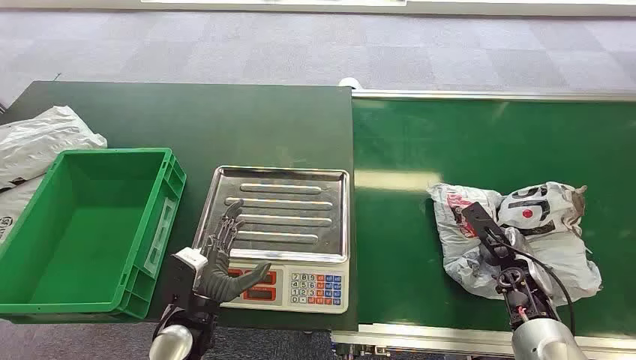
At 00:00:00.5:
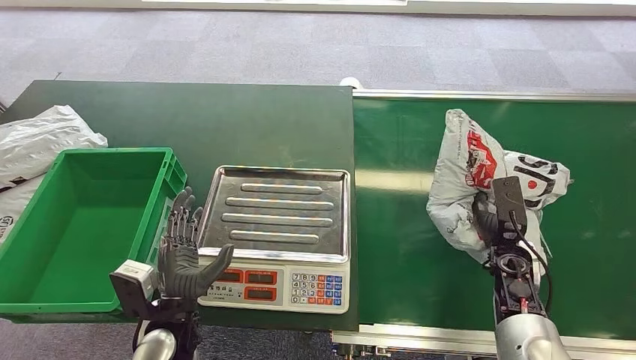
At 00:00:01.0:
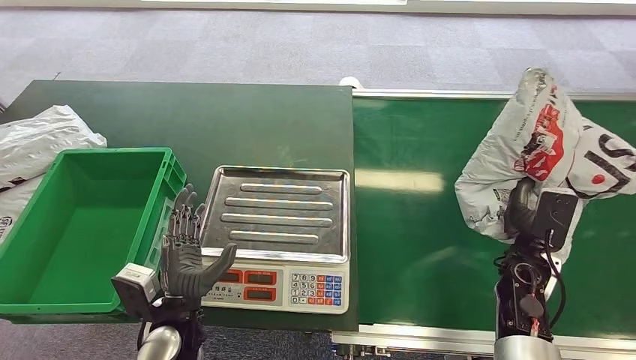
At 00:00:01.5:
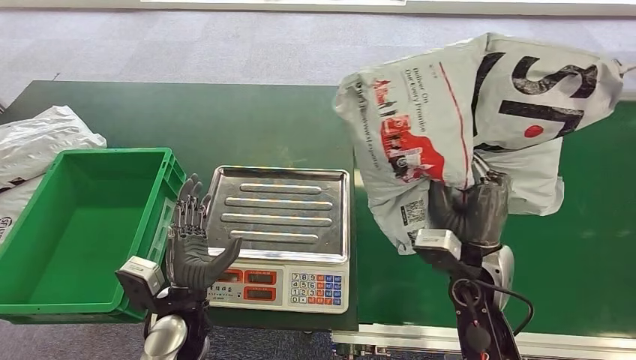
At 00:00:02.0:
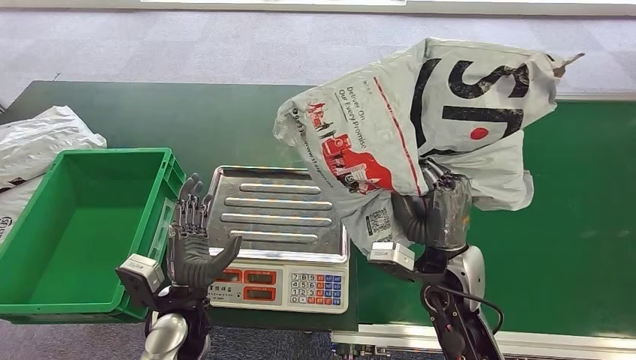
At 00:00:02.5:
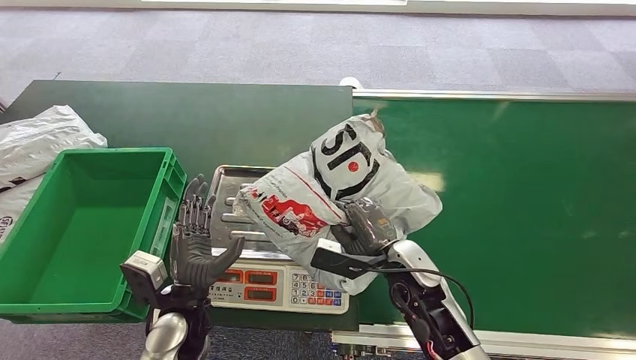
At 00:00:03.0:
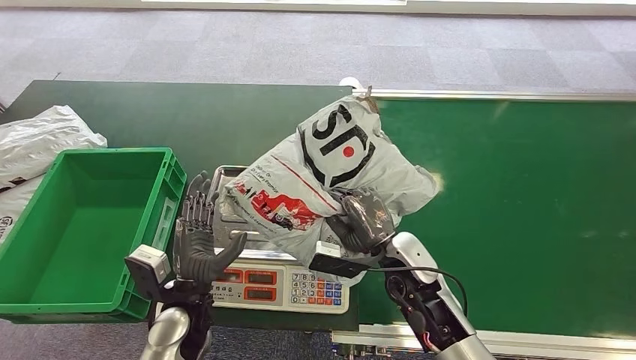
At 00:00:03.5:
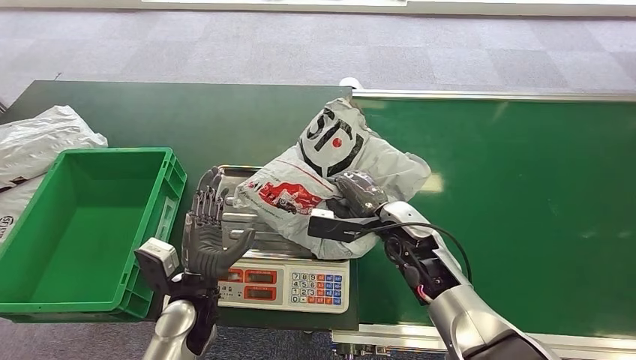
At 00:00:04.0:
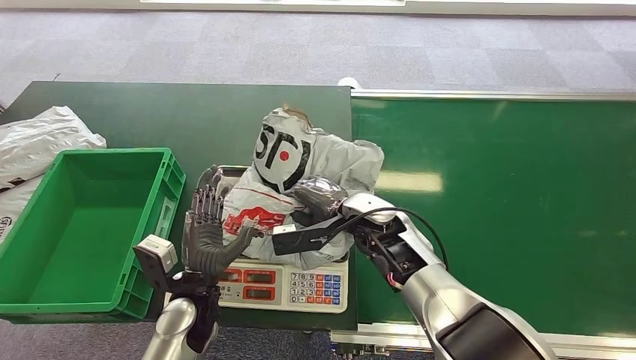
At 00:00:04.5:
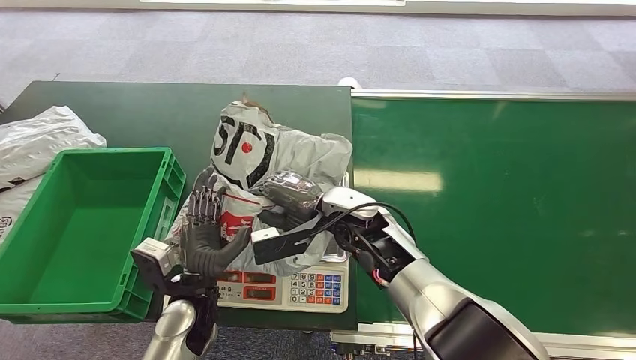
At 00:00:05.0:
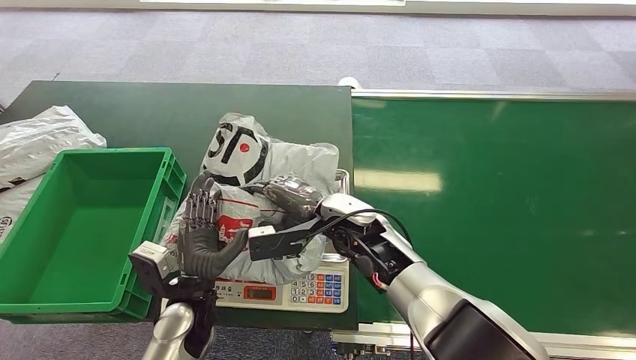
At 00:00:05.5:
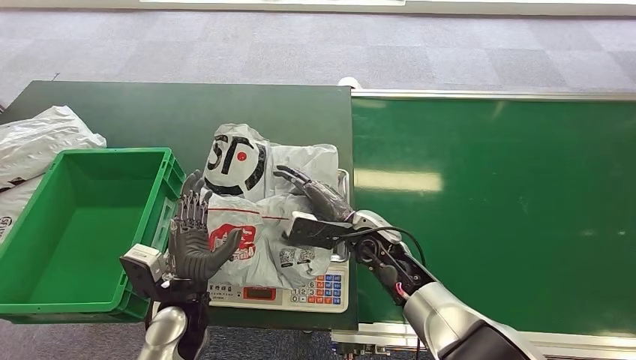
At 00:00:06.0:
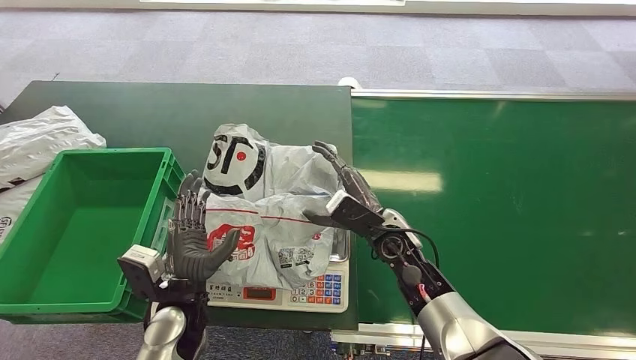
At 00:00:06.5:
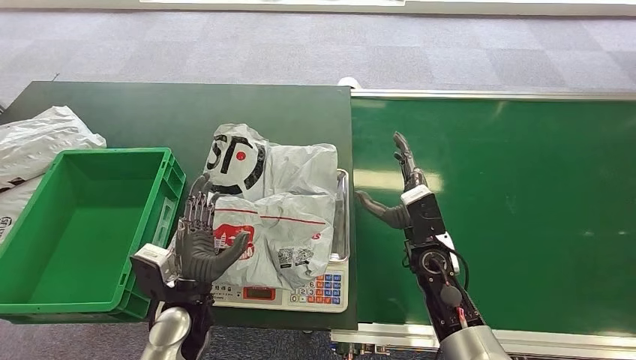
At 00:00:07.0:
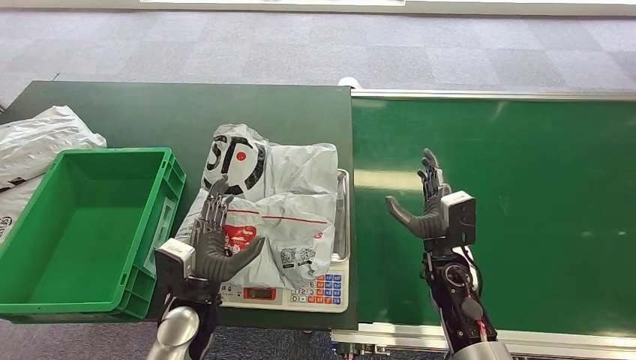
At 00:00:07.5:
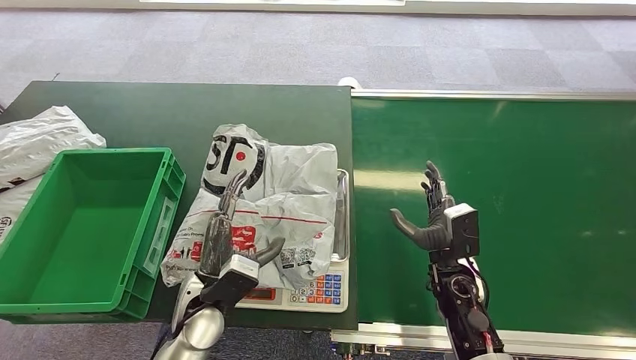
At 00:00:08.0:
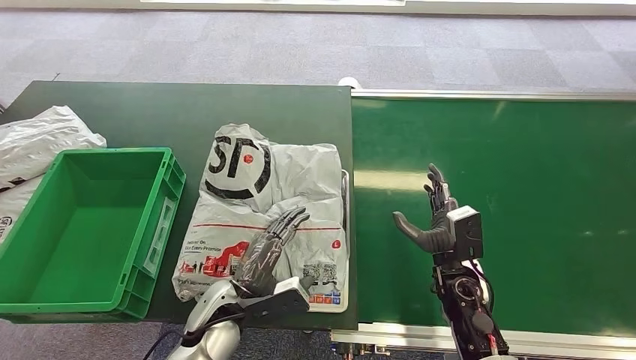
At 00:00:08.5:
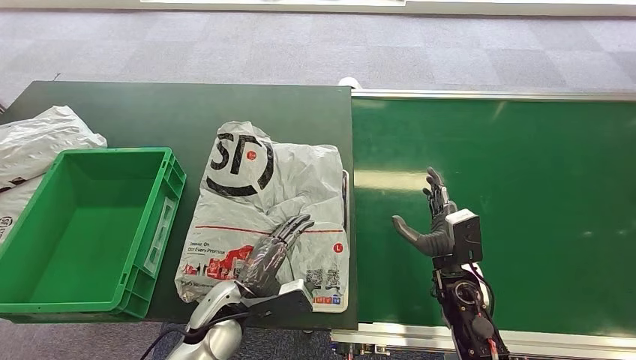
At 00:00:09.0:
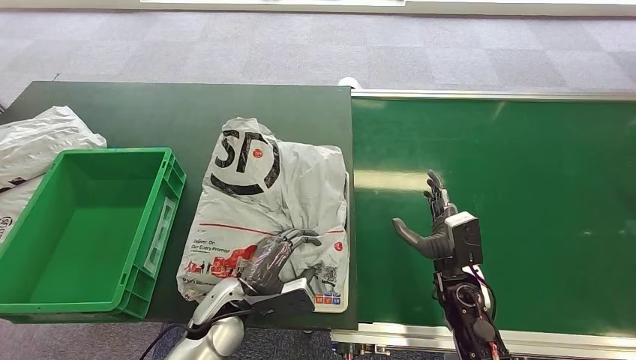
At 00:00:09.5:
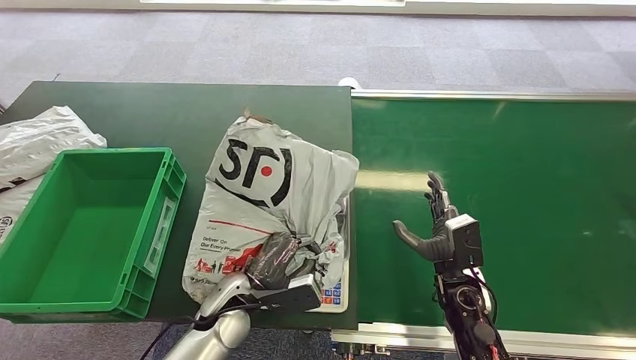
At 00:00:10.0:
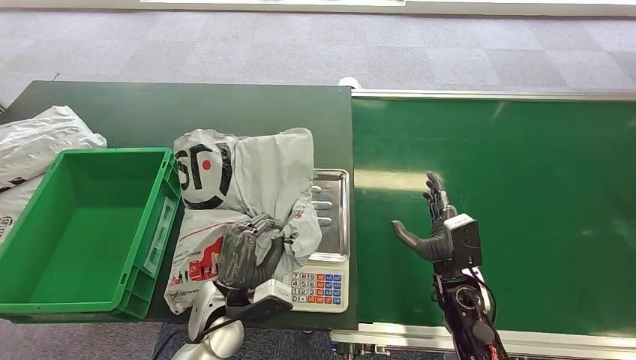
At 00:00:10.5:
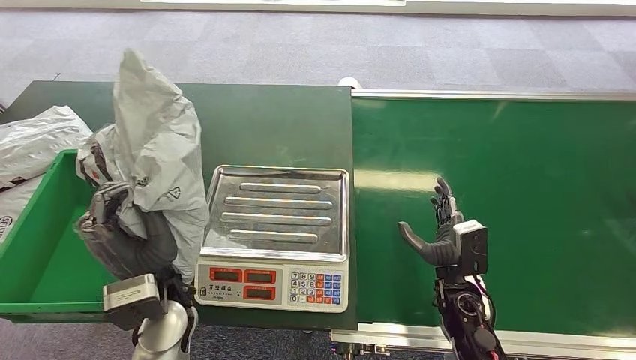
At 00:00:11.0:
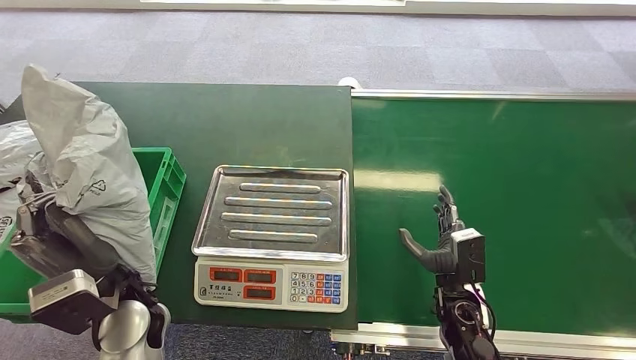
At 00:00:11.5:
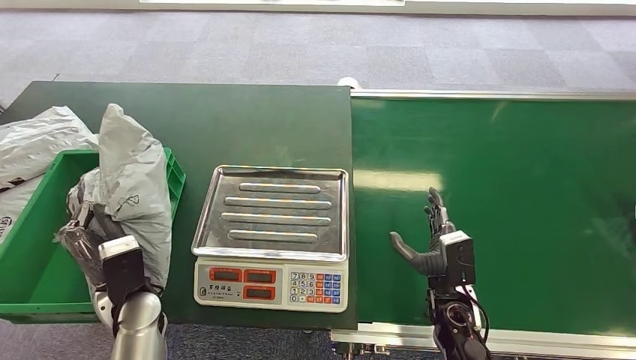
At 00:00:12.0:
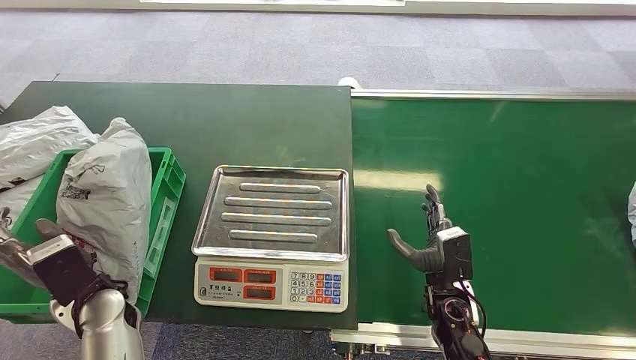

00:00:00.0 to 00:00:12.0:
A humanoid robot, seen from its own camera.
Step, 00:00:00.0 to 00:00:01.0: Pick up the package from the conveyor belt.
Step, 00:00:03.5 to 00:00:05.5: Place the package onto the inbound machine.
Step, 00:00:10.0 to 00:00:10.5: Pick up the package from the inbound machine.
Step, 00:00:11.5 to 00:00:12.0: Place the package into the parcel locker.
00:00:04.0 to 00:00:06.0: The right hand ends up approximately 5 cm from where it was.
00:00:06.0 to 00:00:08.0: The right hand goes approximately 15 cm to the right, backward and downward; the left hand ends up some 5 cm from where it was.

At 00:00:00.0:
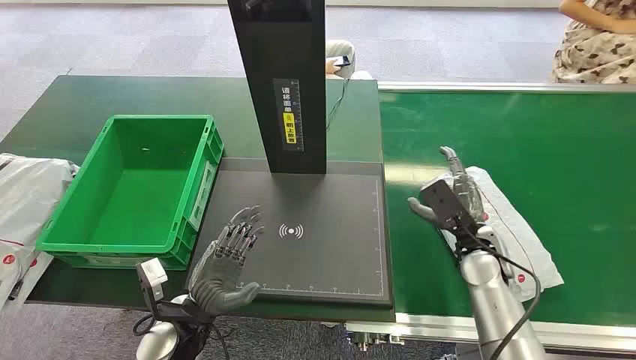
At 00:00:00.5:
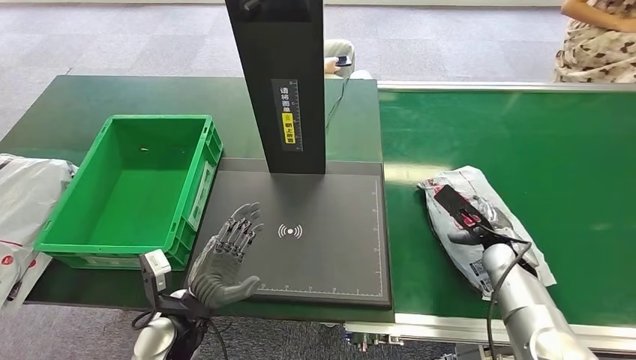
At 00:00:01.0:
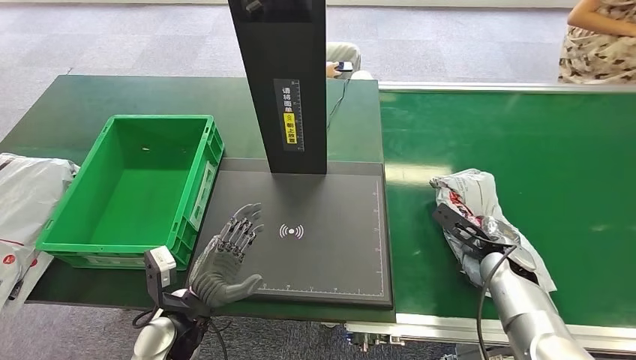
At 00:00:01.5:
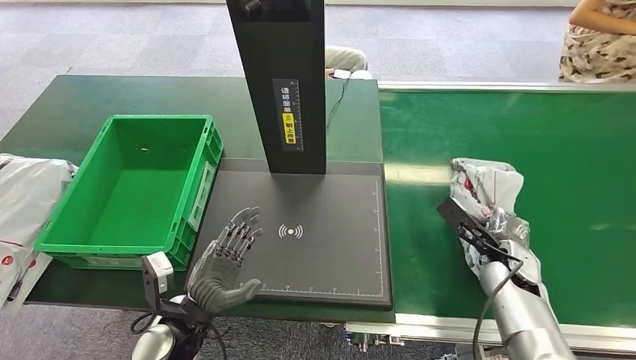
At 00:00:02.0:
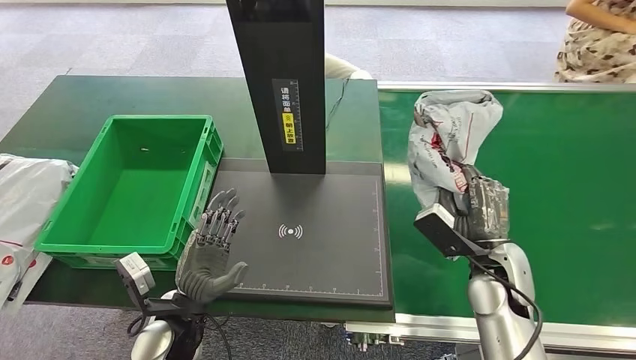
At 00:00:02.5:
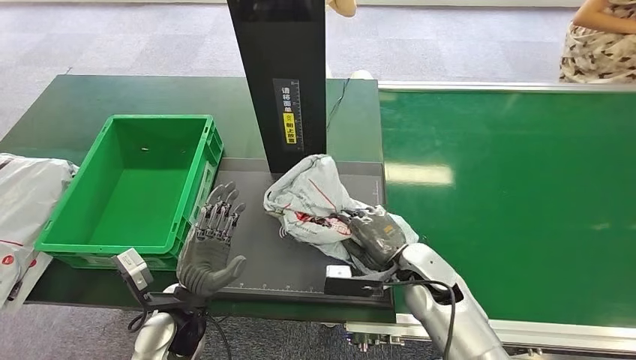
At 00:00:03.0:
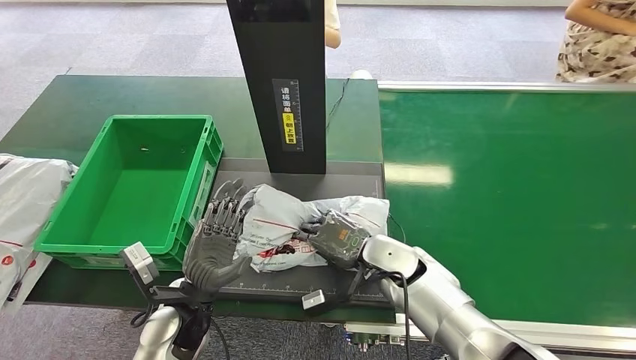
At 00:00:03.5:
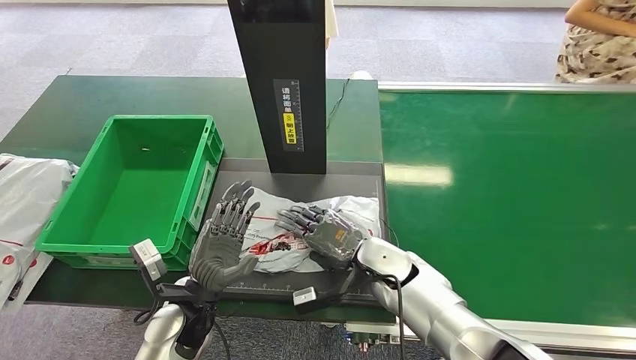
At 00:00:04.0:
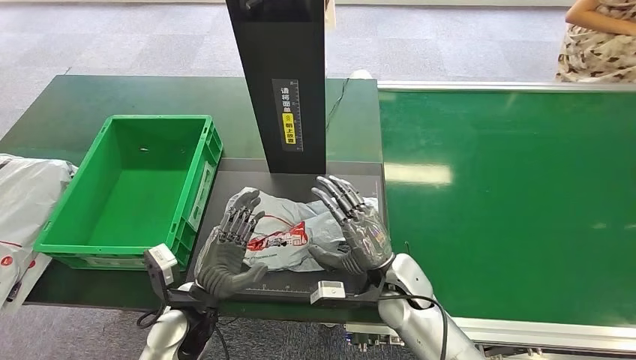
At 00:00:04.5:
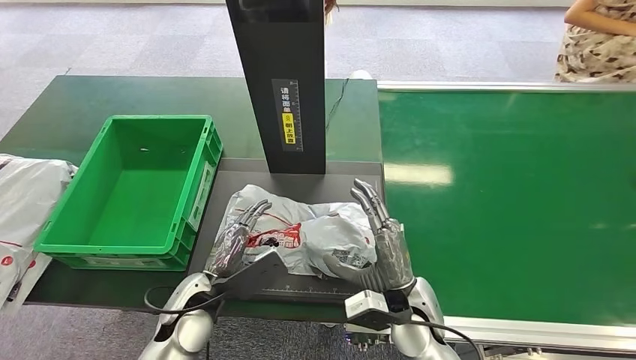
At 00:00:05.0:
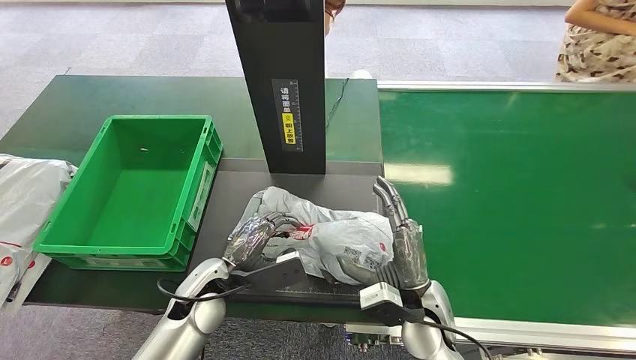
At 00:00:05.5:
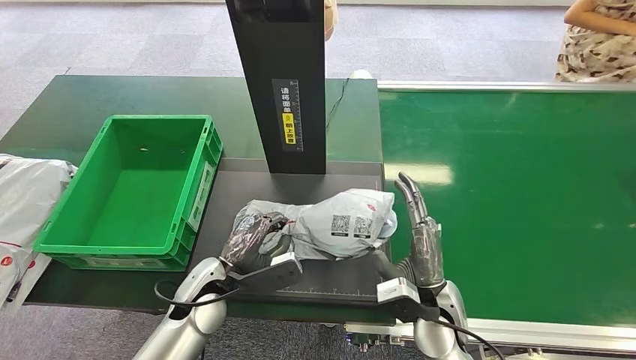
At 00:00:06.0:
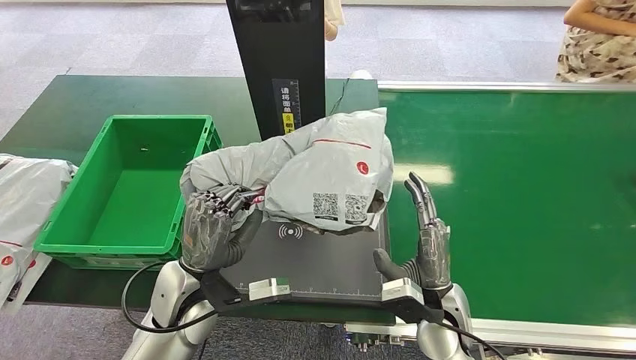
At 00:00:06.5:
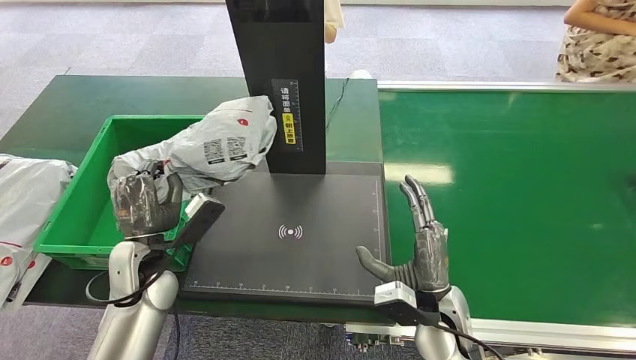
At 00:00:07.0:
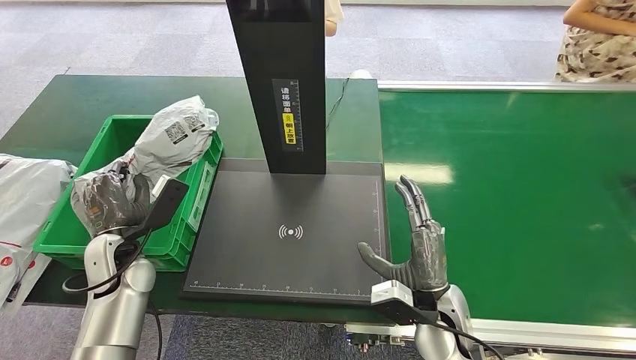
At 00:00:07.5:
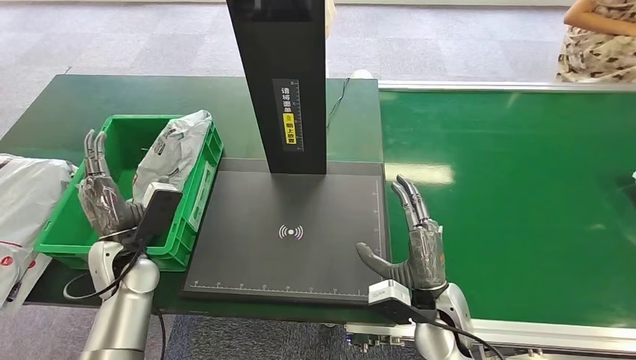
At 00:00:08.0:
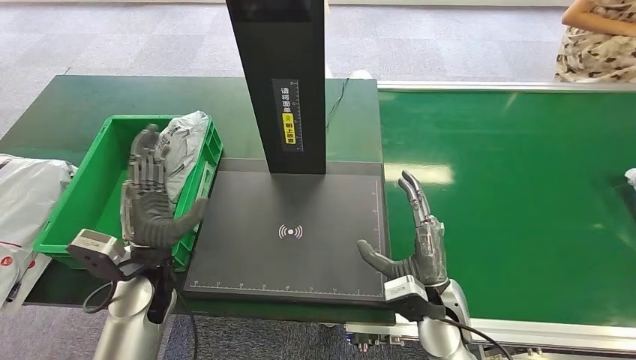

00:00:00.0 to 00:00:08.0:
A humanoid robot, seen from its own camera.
Step, 00:00:00.0 to 00:00:02.0: Pick up the package from the conveyor belt.
Step, 00:00:02.5 to 00:00:04.0: Place the package onto the inbound machine.
Step, 00:00:04.5 to 00:00:06.0: Pick up the package from the inbound machine.
Step, 00:00:06.5 to 00:00:08.0: Place the package into the parcel locker.
00:00:04.0 to 00:00:06.0: The right hand shifts approximately 5 cm backward, while the left hand is displaced upward by some 5 cm.
00:00:06.0 to 00:00:08.0: The left hand travels to the left by some 5 cm.
